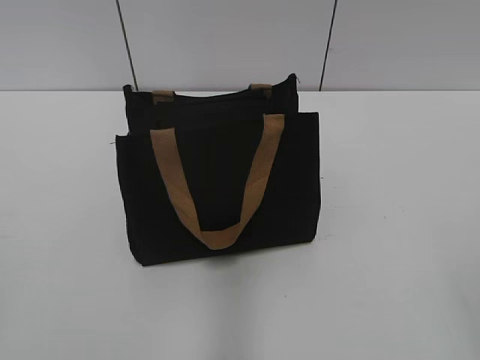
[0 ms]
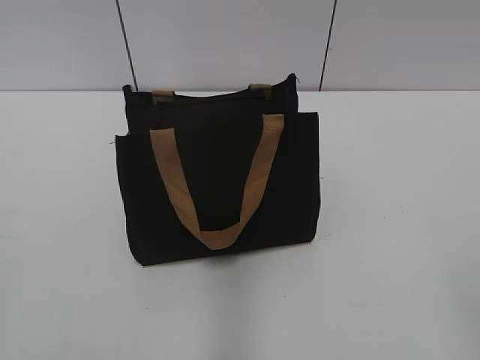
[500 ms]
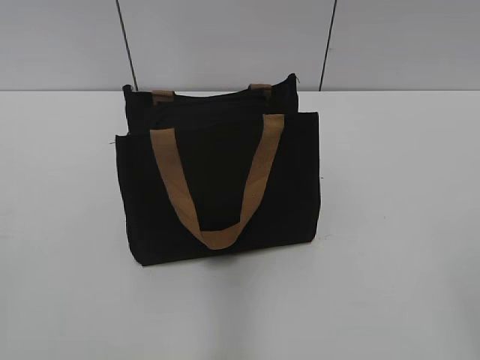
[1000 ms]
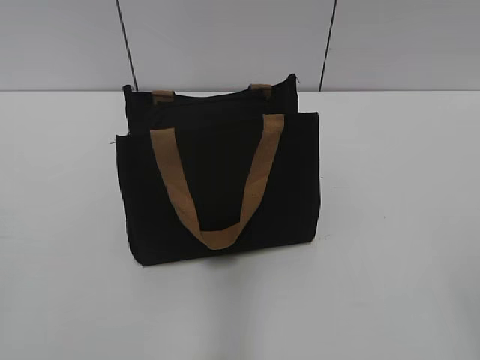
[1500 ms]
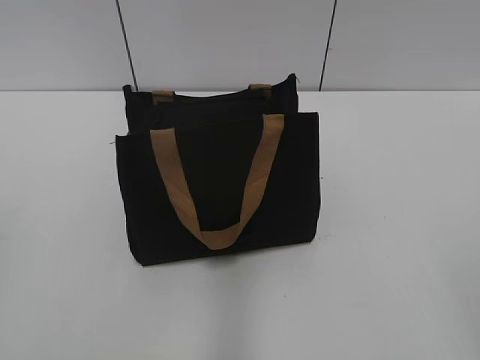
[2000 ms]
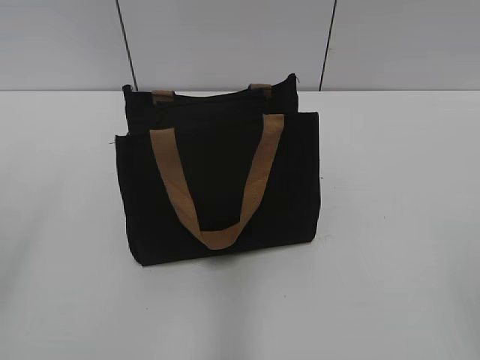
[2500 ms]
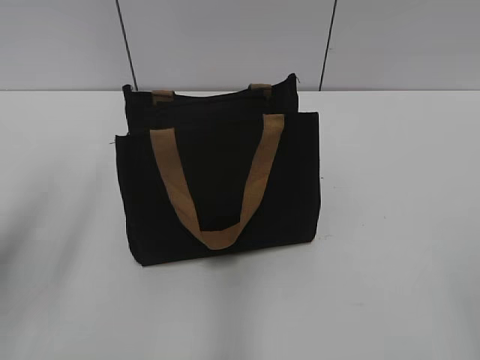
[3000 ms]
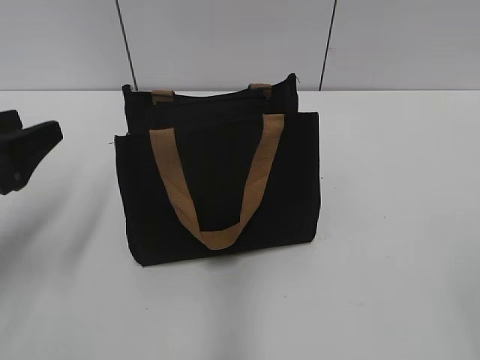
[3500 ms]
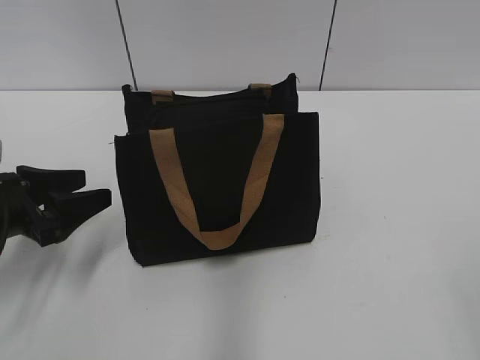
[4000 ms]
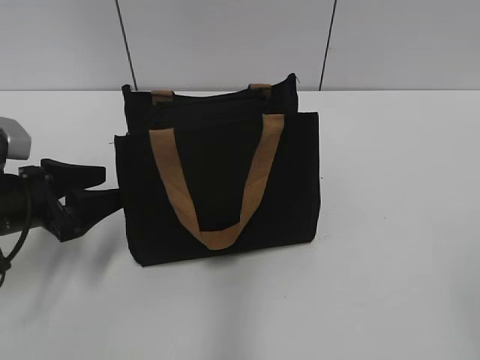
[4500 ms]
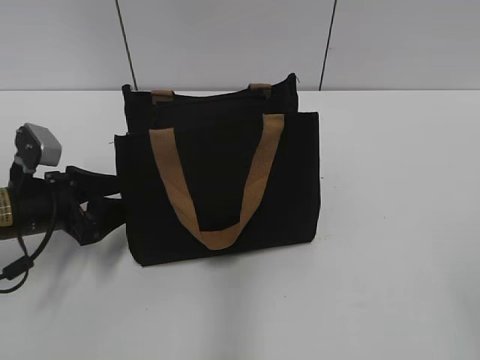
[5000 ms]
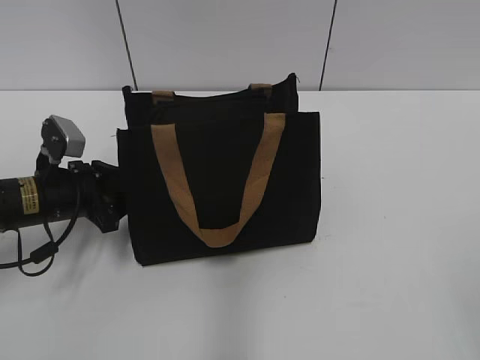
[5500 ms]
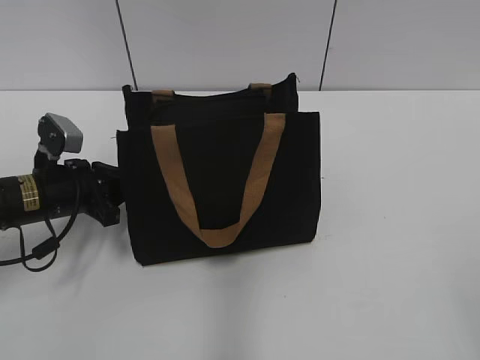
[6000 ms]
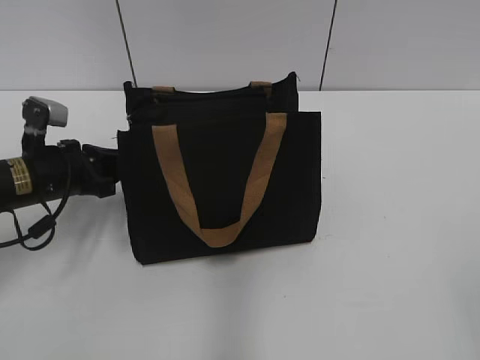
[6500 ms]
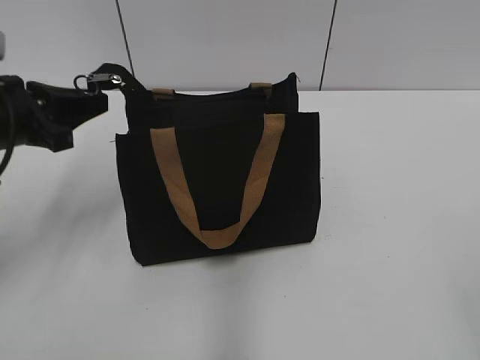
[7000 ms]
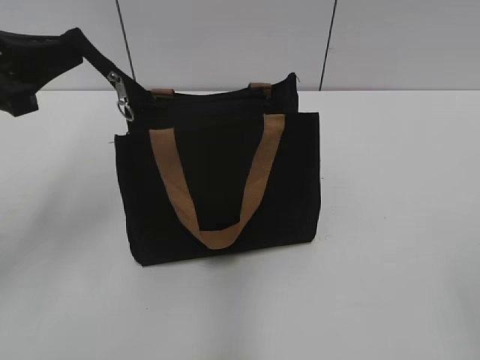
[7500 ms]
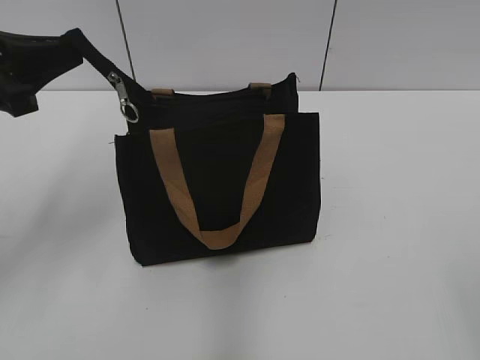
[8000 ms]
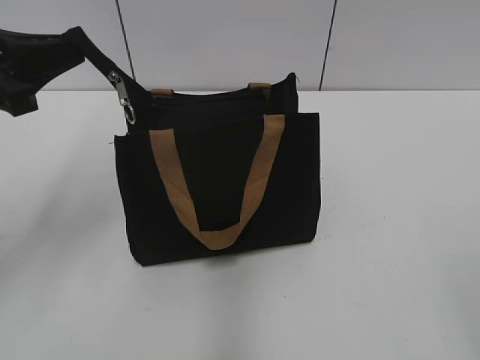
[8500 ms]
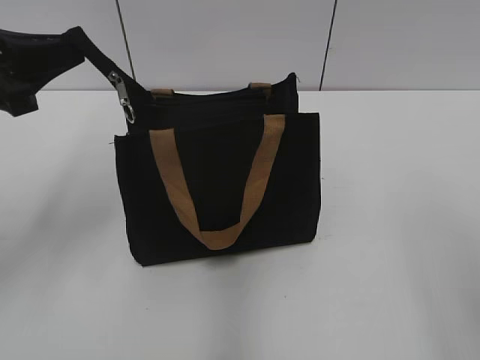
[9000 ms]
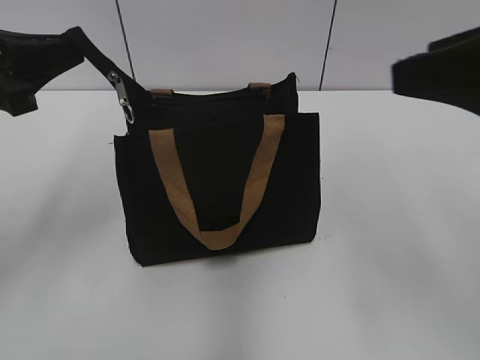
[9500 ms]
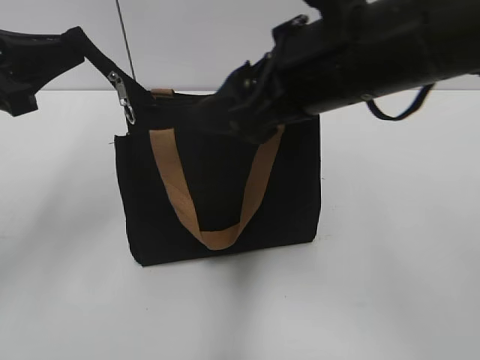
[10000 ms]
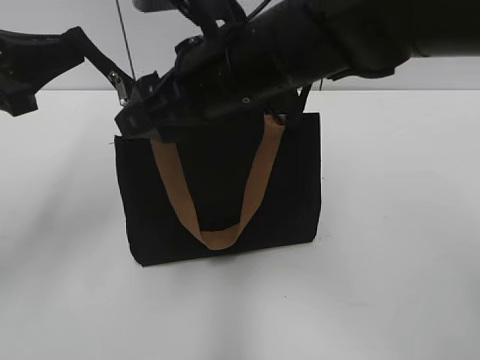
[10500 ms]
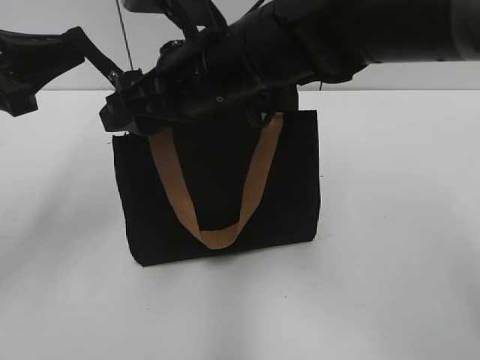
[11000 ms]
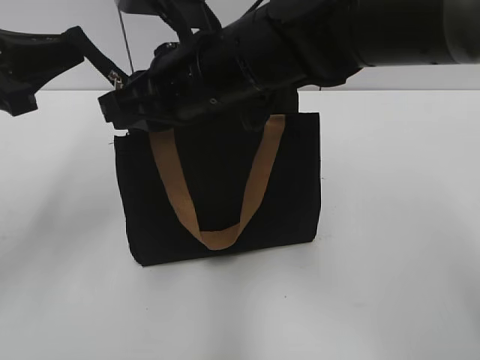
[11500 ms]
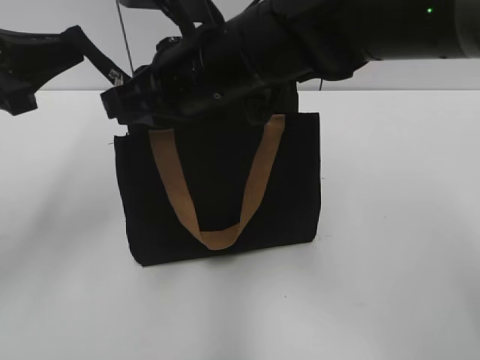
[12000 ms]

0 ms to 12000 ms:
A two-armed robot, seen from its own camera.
2000 ms to 4000 ms: The left gripper shifts some 30 cm forward and downward, and opens its fingers.
4000 ms to 6000 ms: The left gripper travels forward by roughly 10 cm, and closes its fingers.
6000 ms to 8000 ms: The left gripper heads upward, covering roughly 20 cm.
8000 ms to 10000 ms: The right gripper heads forward and to the left, covering approximately 30 cm.
10000 ms to 12000 ms: The right gripper heads to the left and forward, covering about 15 cm, and closes.

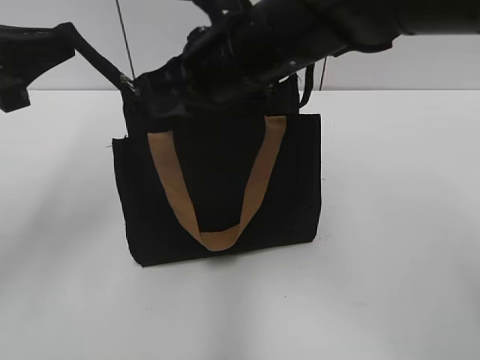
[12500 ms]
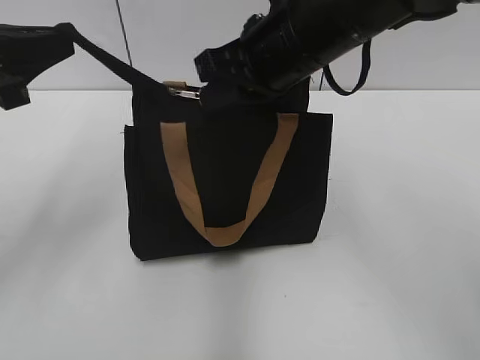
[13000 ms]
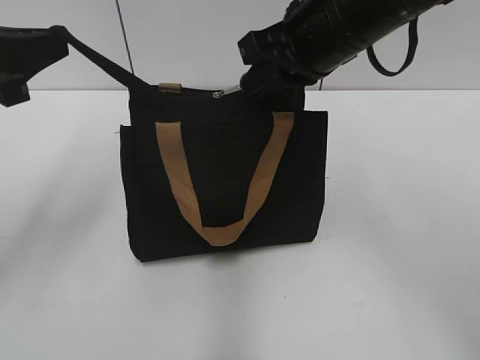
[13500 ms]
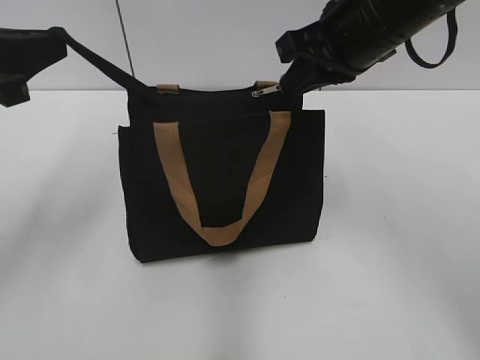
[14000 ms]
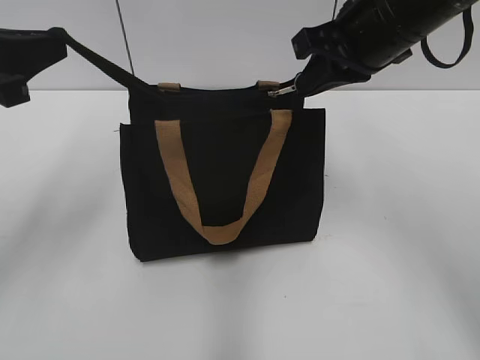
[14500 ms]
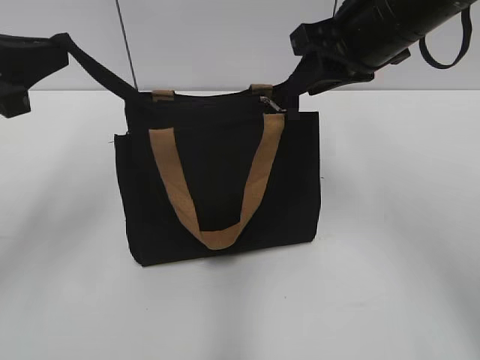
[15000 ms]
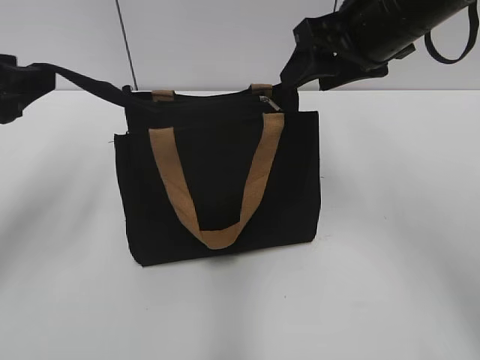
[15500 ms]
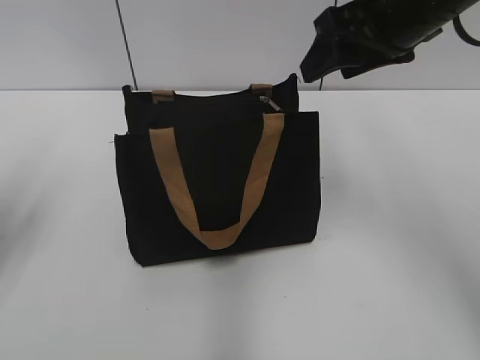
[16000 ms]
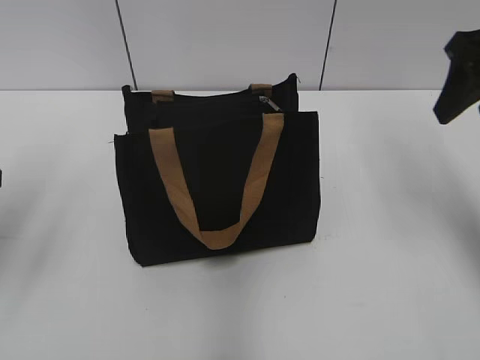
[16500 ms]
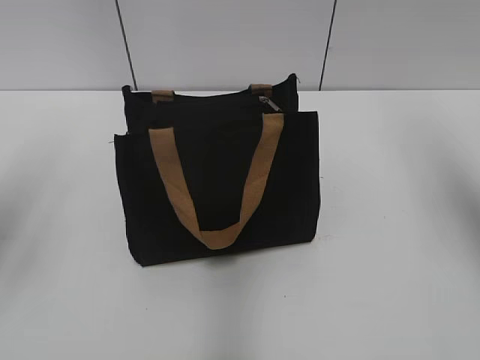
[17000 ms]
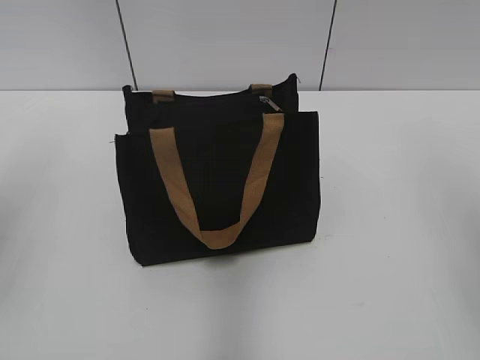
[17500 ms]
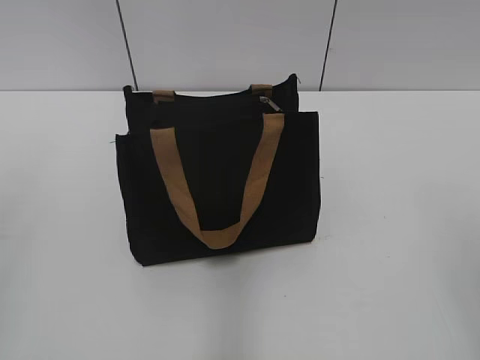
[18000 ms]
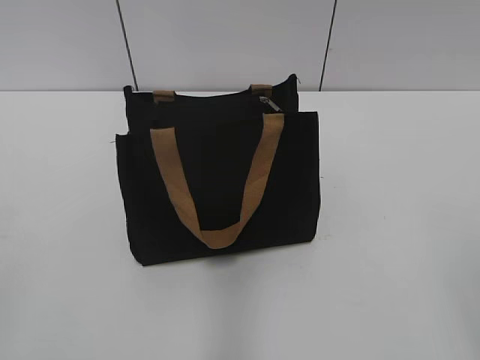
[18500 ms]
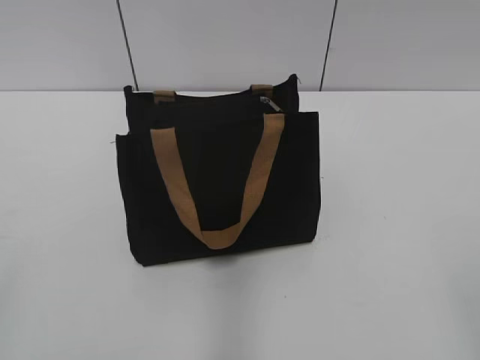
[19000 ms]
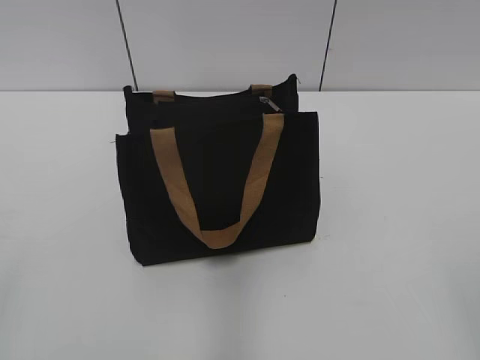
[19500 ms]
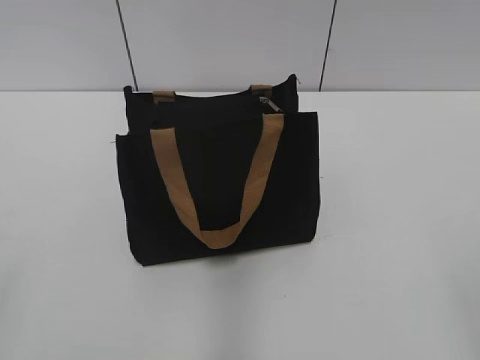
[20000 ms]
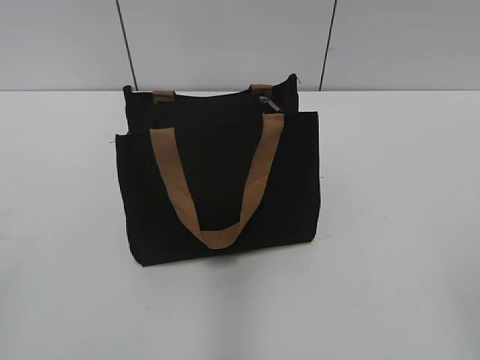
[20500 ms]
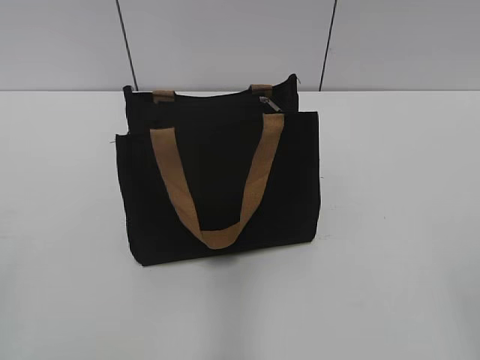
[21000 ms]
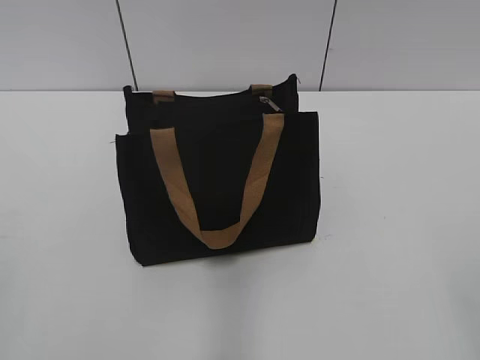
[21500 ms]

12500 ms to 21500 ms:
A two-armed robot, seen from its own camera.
Step, 12500 ms to 14500 ms: Zip up the bag with your right hand.
12500 ms to 14500 ms: The right gripper travels to the right by some 15 cm.
14500 ms to 17000 ms: The left gripper opens up; the right gripper shifts about 15 cm to the right, and opens its fingers.
17000 ms to 19500 ms: Both grippers travel together backward, about 25 cm.
